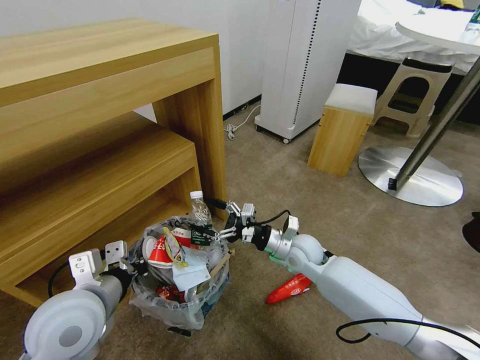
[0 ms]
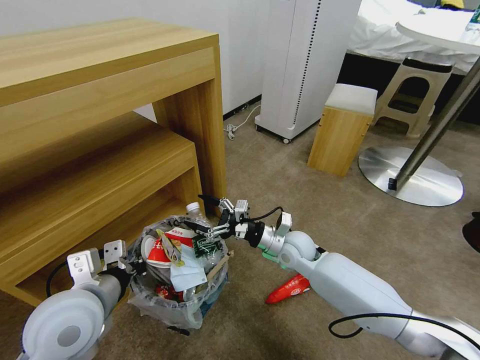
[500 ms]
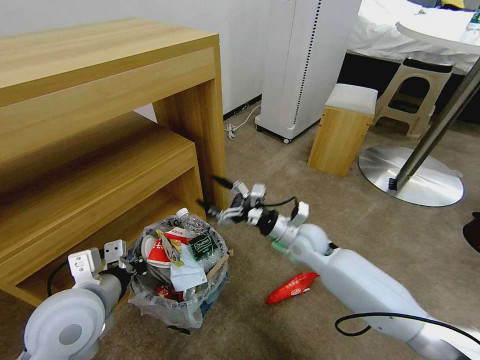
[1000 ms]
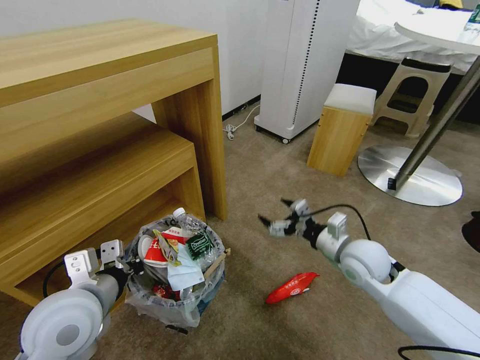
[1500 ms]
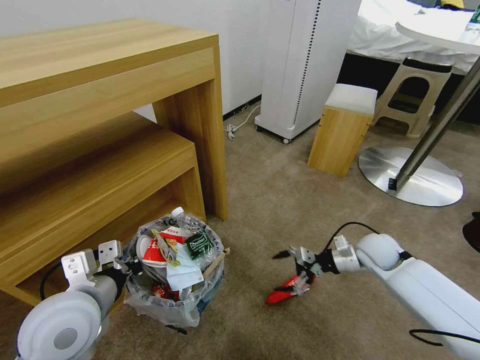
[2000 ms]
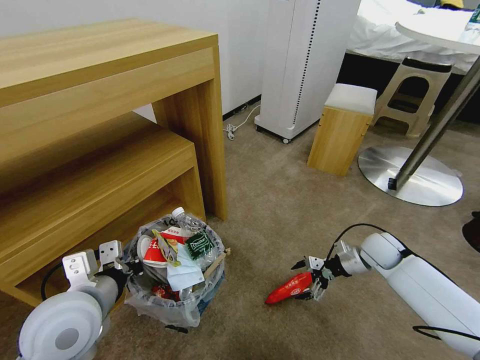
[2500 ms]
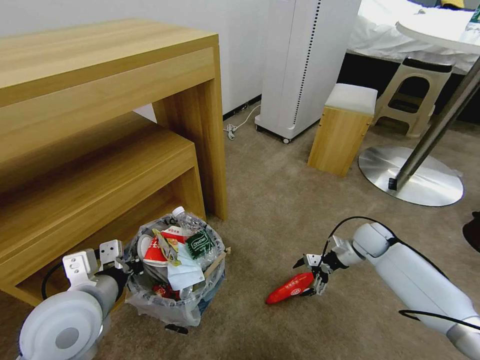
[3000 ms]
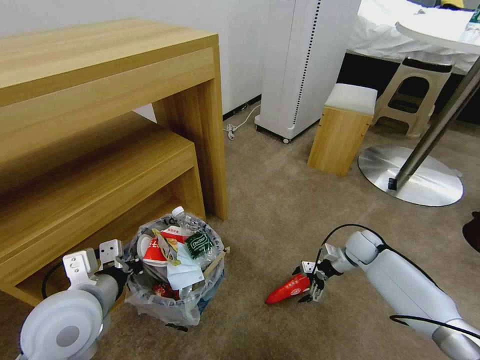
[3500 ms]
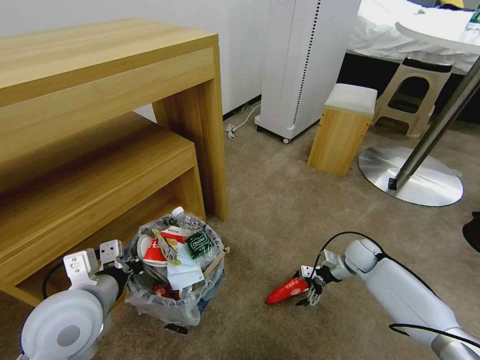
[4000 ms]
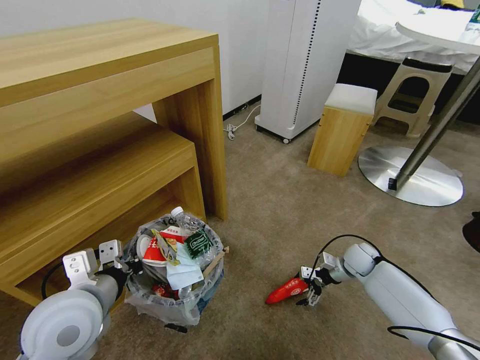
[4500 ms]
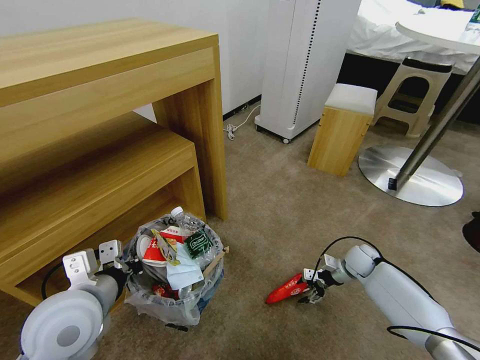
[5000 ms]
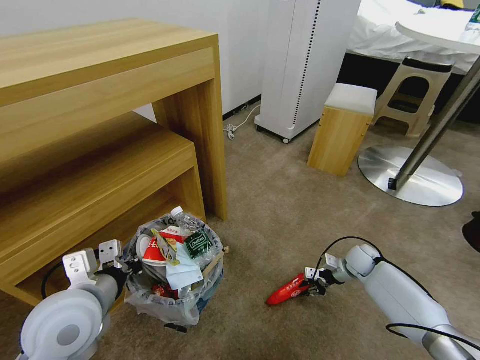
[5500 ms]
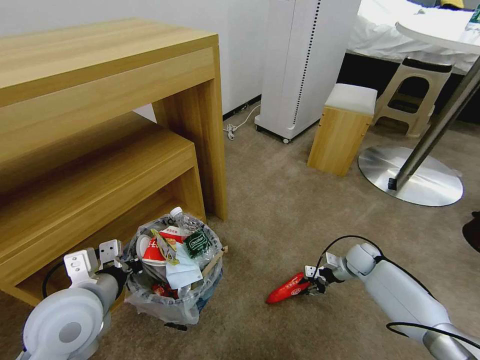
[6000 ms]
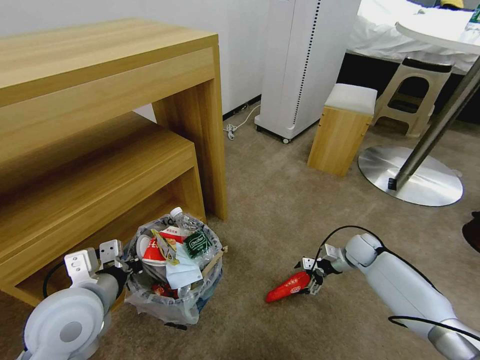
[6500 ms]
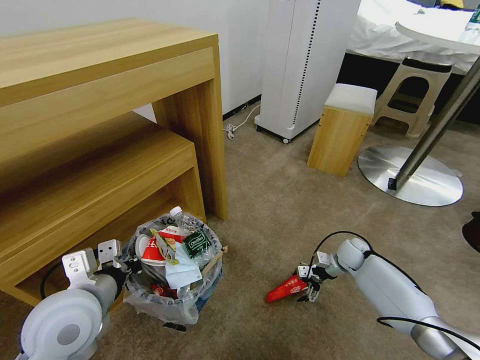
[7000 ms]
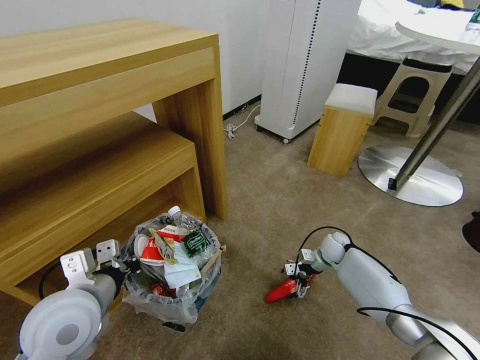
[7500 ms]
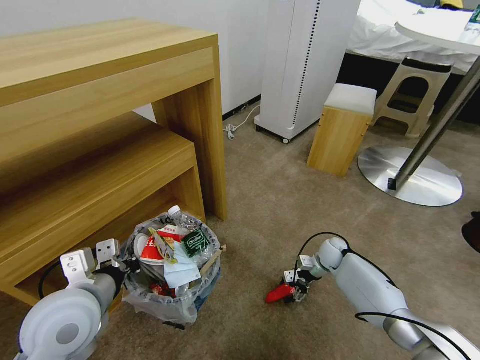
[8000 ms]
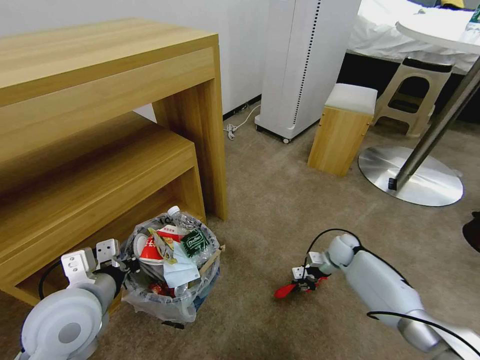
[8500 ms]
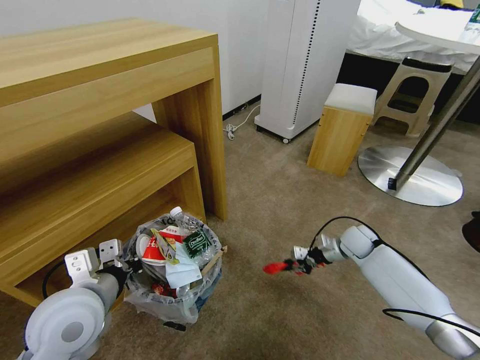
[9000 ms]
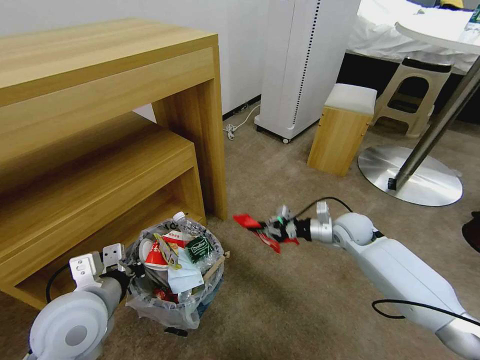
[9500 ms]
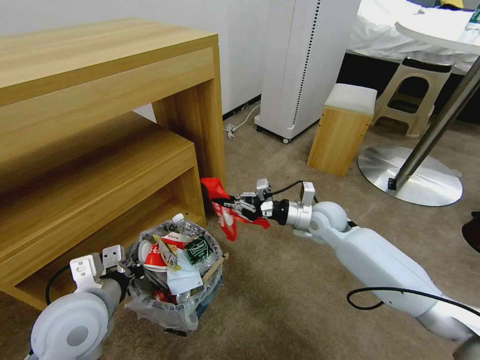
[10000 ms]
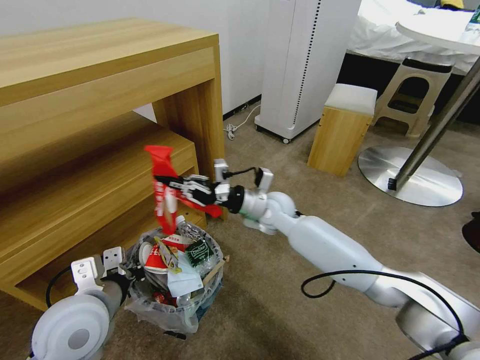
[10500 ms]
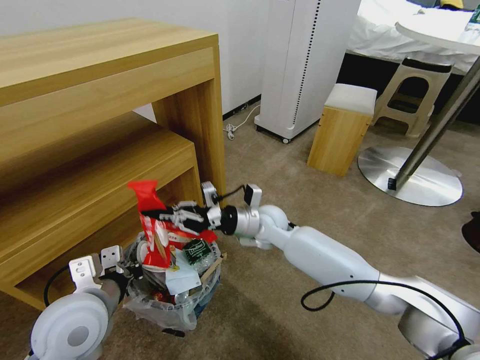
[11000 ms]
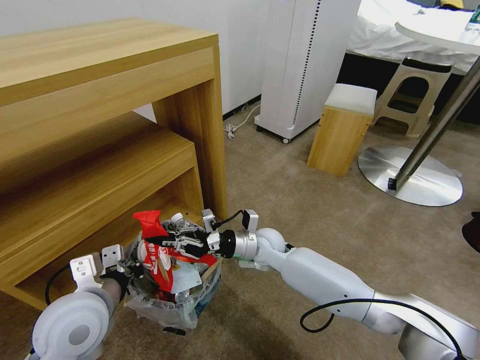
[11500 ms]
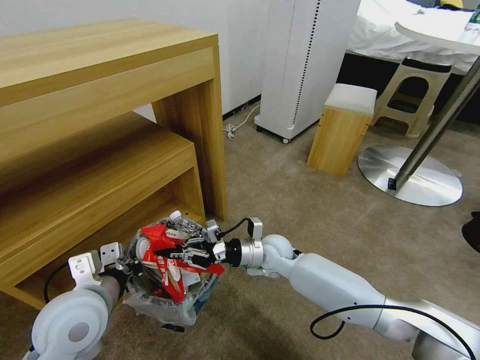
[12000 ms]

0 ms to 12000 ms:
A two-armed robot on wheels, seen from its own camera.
Task of the whole recording: Pick up the trash bin and place the garbage on the floor into it.
0 ms to 2000 ms: The right gripper heads to the right, covering about 20 cm.
2000 ms to 4000 ms: The right gripper travels downward by about 10 cm.
4000 ms to 6000 ms: The right gripper closes its fingers.
6000 ms to 8000 ms: The right gripper goes some 10 cm to the left.
8000 ms to 10000 ms: The right gripper shifts roughly 20 cm upward and to the left, and closes.
10000 ms to 12000 ms: The right gripper travels to the left and downward by approximately 15 cm.

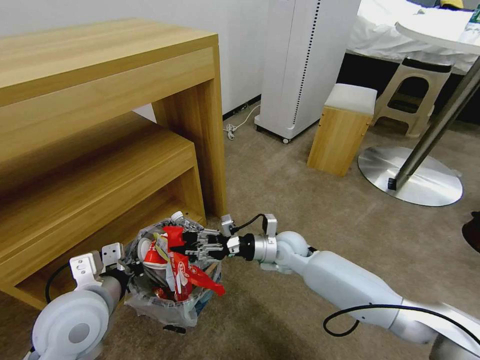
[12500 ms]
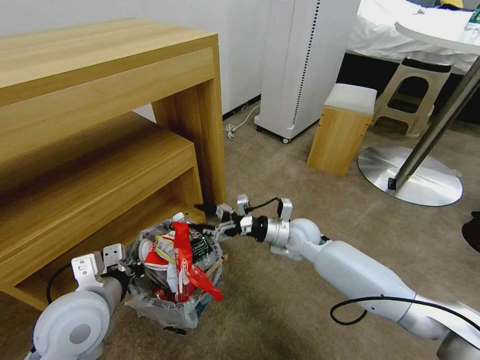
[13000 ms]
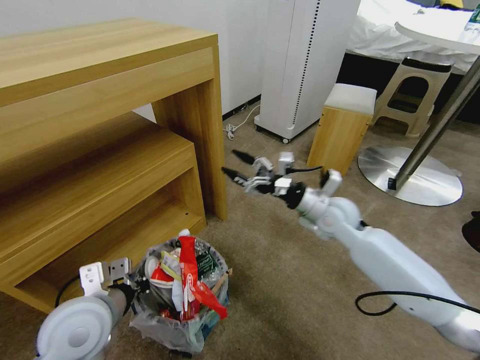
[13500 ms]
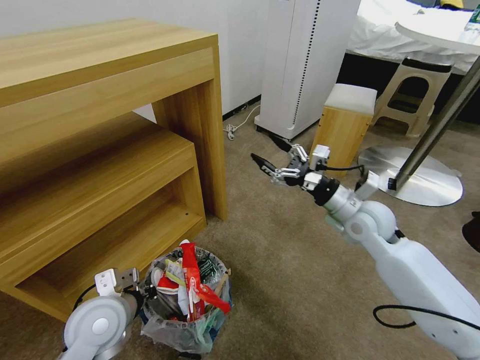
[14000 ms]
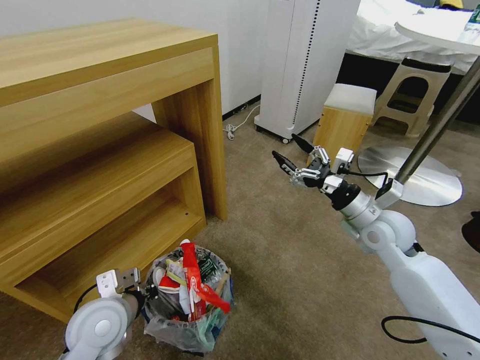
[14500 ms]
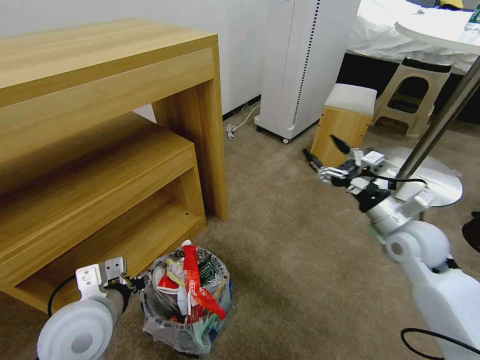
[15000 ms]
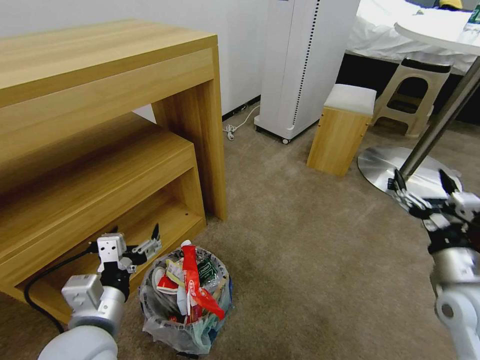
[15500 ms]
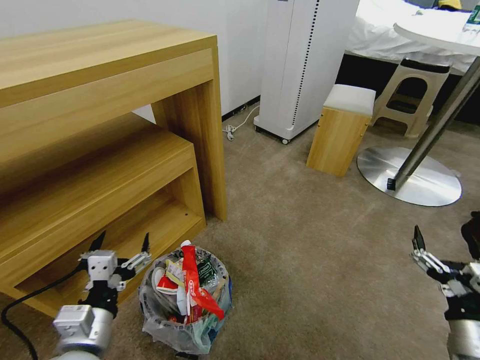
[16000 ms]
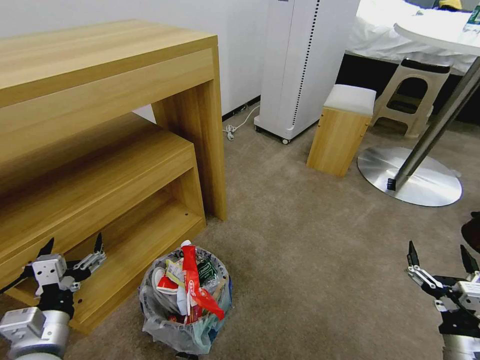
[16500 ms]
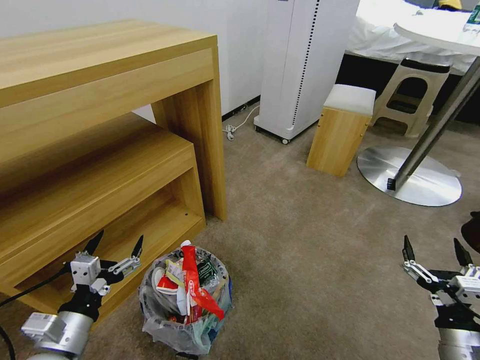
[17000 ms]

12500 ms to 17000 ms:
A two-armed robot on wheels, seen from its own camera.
Task of the whole recording: Pick up the trash bin and place the garbage on the floor into it.
12500 ms to 14500 ms: The right gripper moves to the right and upward, about 25 cm, and opens its fingers. The left gripper travels downward by roughly 5 cm.
14500 ms to 17000 ms: The left gripper shifts about 10 cm backward and to the left, and opens its fingers. Meanwhile the right gripper is displaced backward, downward and to the right by some 30 cm.

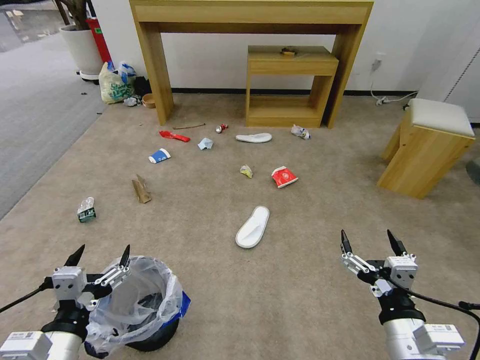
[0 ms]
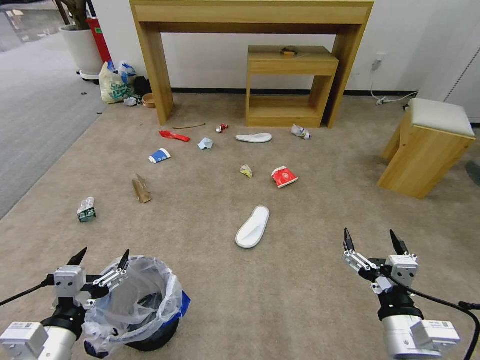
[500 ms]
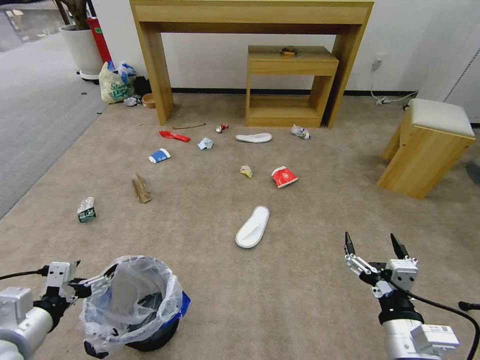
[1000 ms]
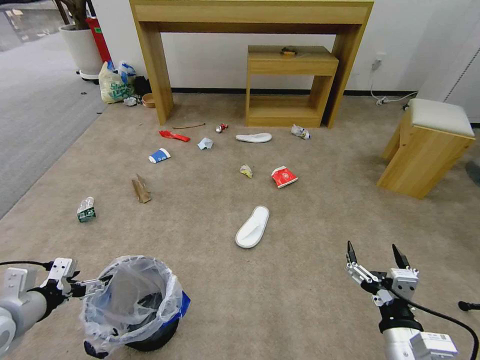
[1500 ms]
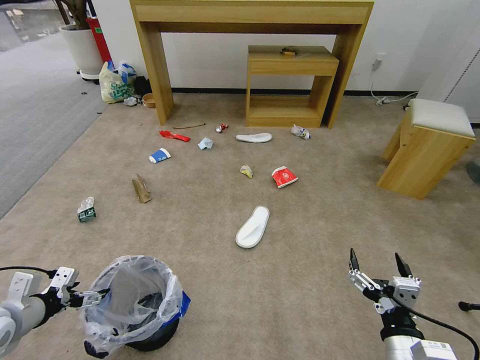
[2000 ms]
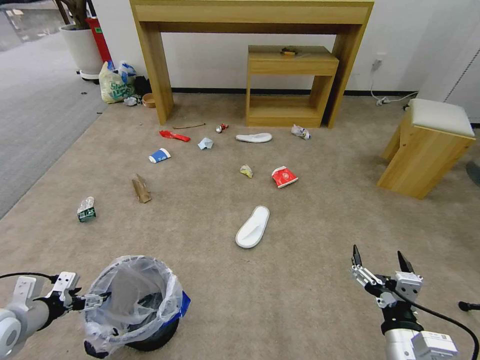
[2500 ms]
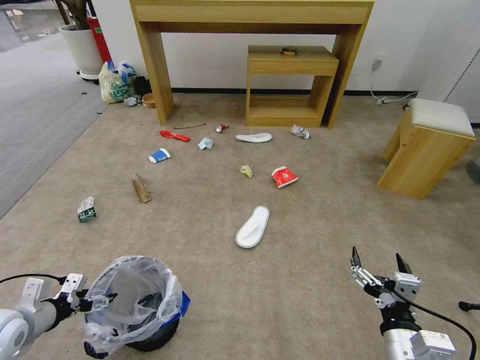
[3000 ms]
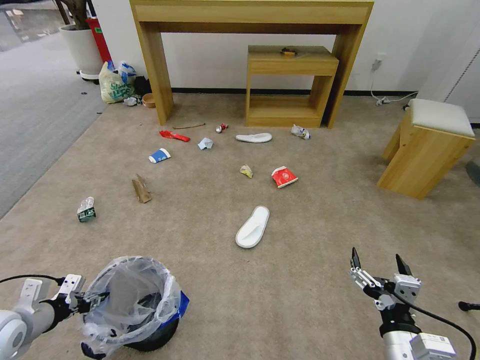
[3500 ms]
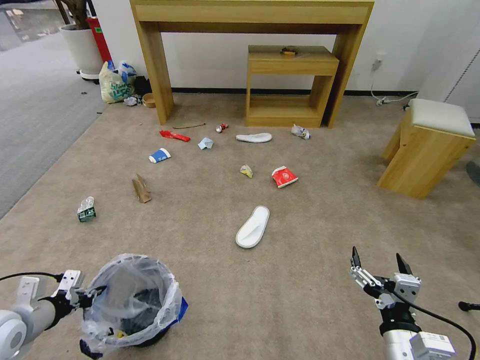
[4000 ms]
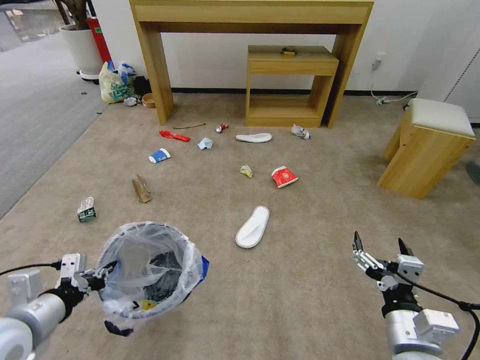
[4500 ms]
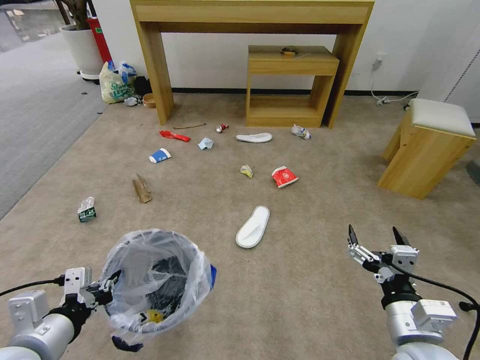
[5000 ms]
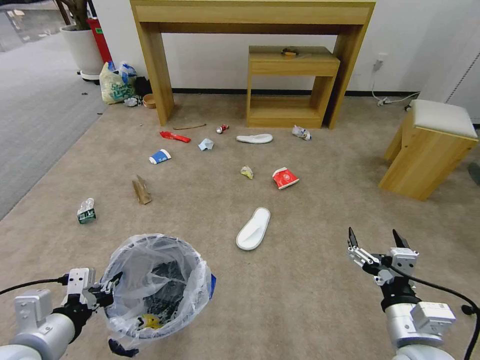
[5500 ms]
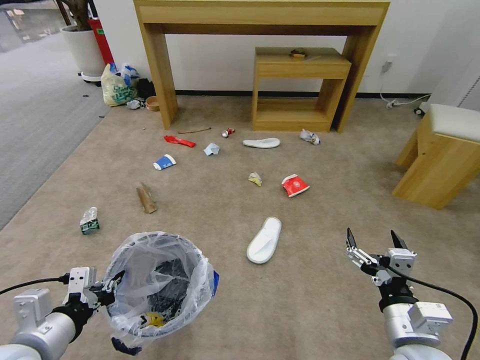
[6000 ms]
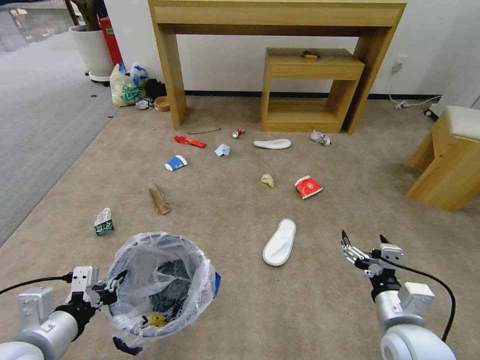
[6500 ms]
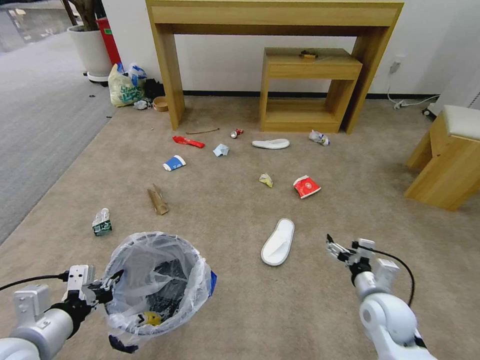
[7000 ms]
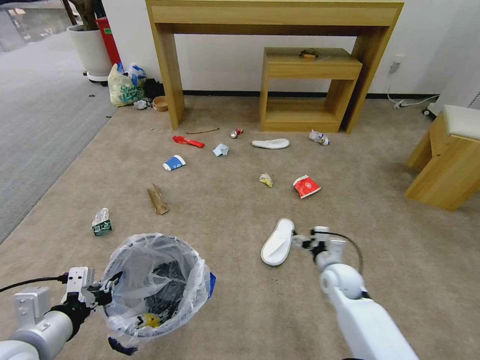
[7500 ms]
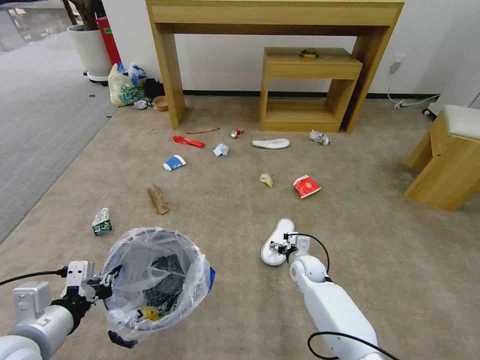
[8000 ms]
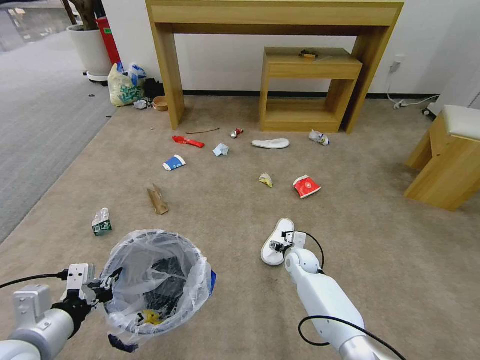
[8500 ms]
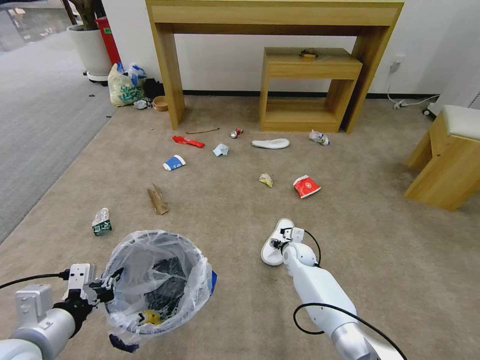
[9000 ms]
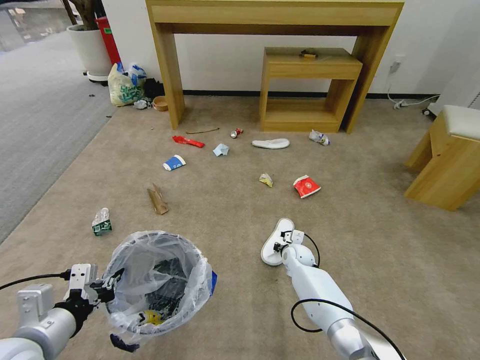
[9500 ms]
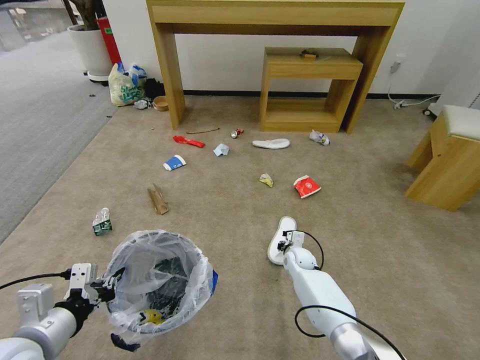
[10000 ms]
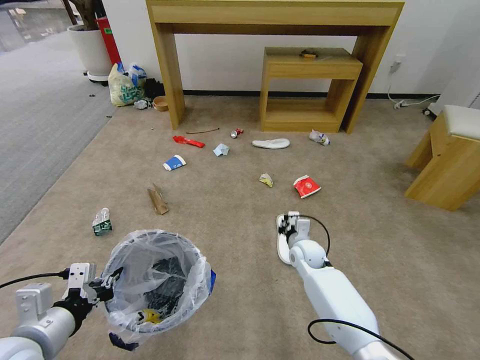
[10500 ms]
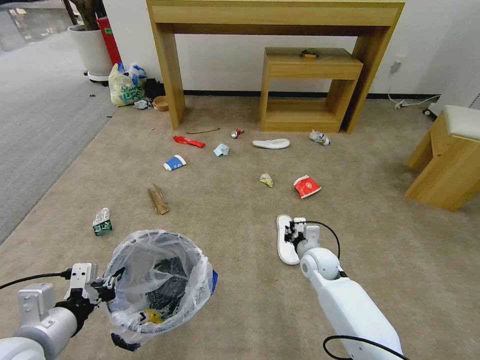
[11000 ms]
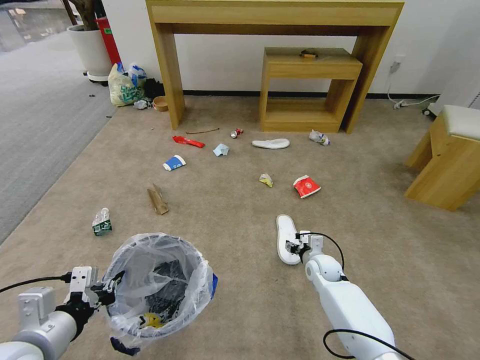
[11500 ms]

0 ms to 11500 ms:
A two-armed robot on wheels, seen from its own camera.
Task of the whole recording: Pick up the trash bin and place the garbage on the floor into it.
2000 ms to 4000 ms: The left gripper closes its fingers.
4000 ms to 6000 ms: The left gripper heads to the right, backward and upward, covering approximately 15 cm.
6000 ms to 7500 ms: The right gripper shifts roughly 25 cm forward and downward.
7500 ms to 9500 ms: The right gripper shifts some 15 cm forward, downward and to the left, and closes up.
9500 ms to 11500 ms: The right gripper travels to the right by some 5 cm, reaches about 10 cm upward, then returns, and opens.
